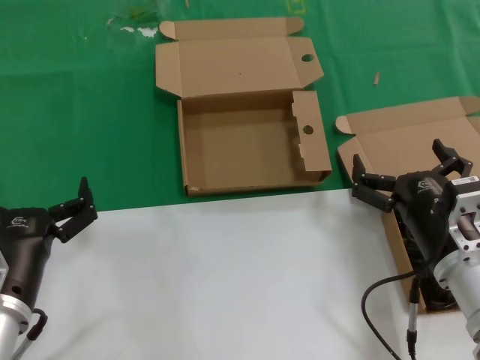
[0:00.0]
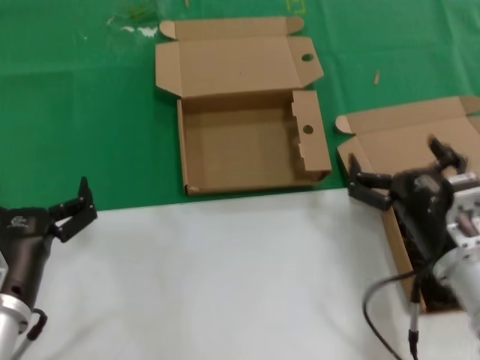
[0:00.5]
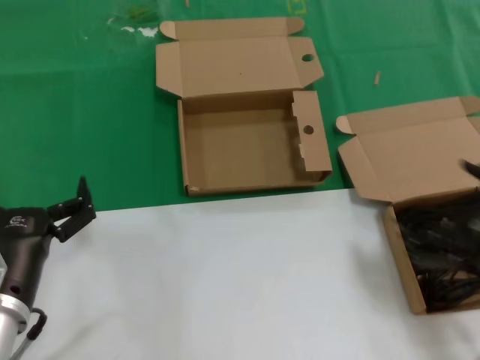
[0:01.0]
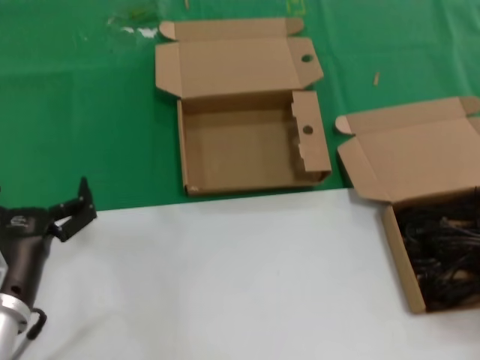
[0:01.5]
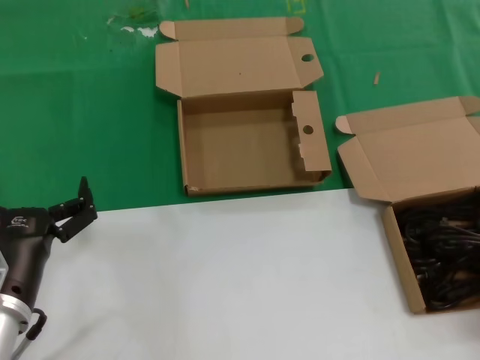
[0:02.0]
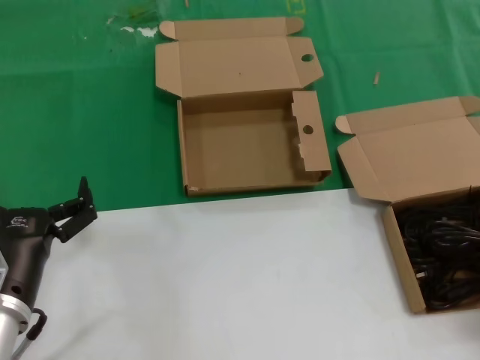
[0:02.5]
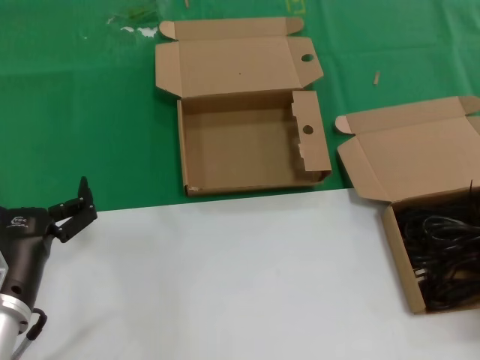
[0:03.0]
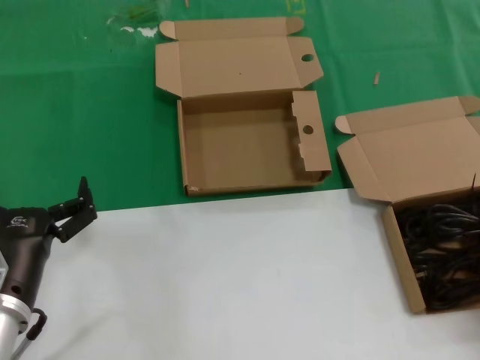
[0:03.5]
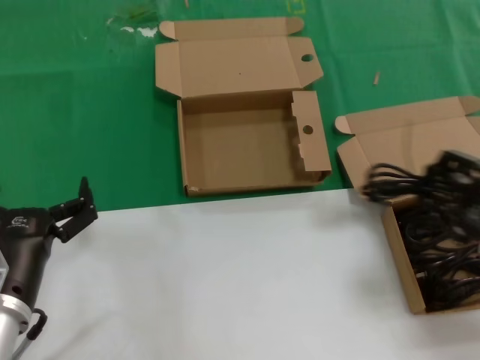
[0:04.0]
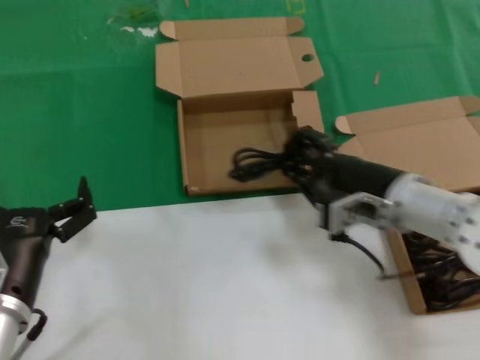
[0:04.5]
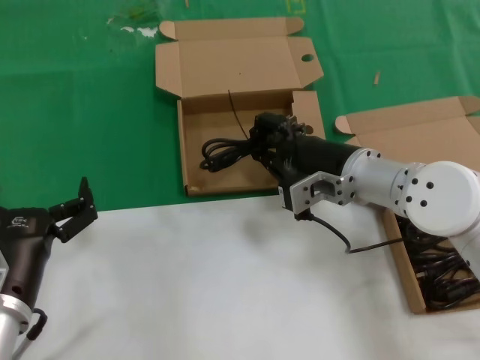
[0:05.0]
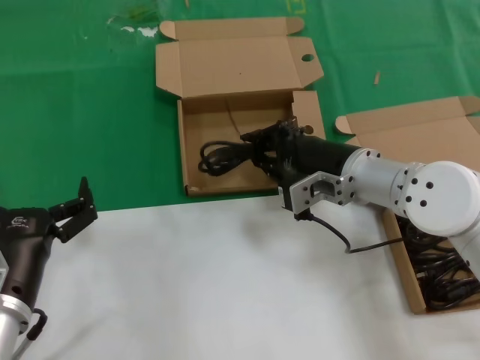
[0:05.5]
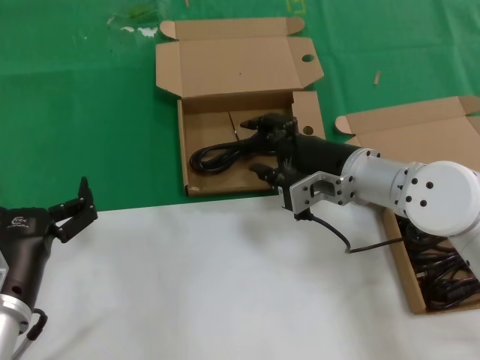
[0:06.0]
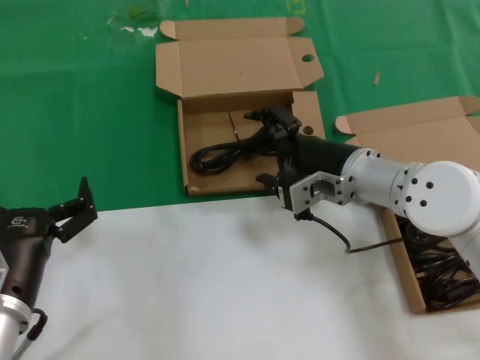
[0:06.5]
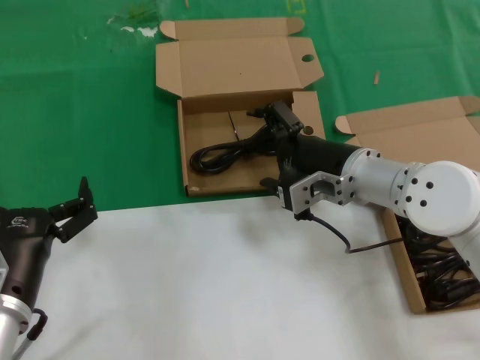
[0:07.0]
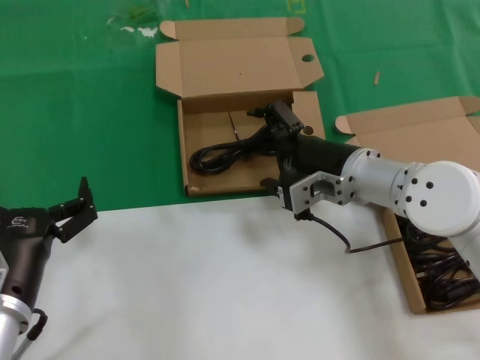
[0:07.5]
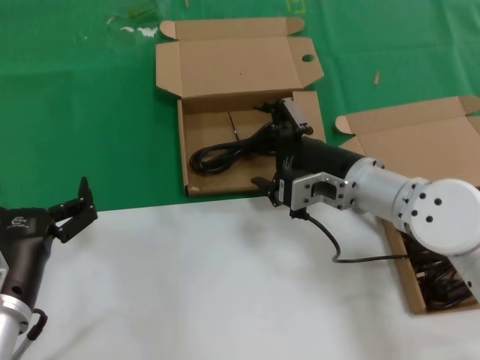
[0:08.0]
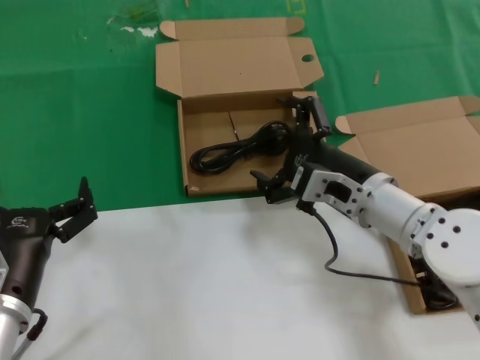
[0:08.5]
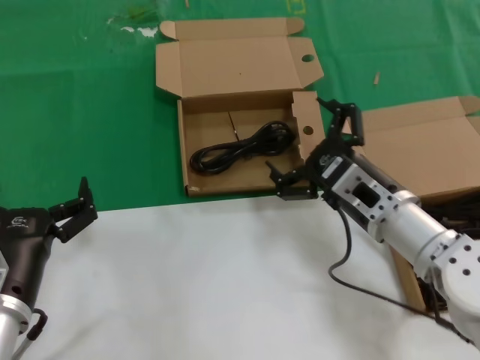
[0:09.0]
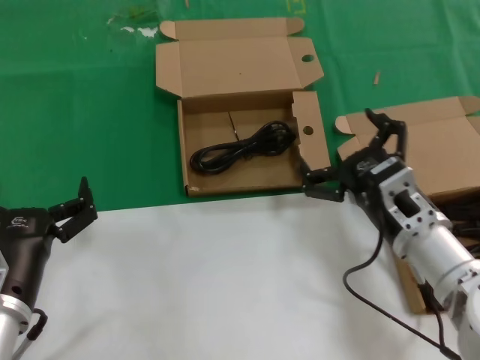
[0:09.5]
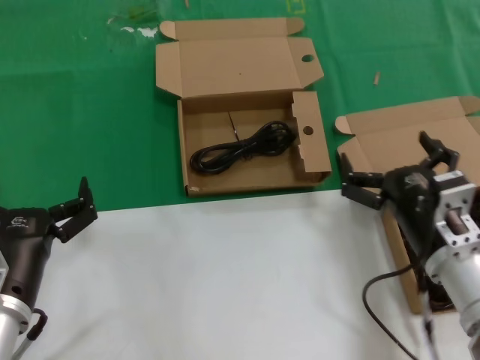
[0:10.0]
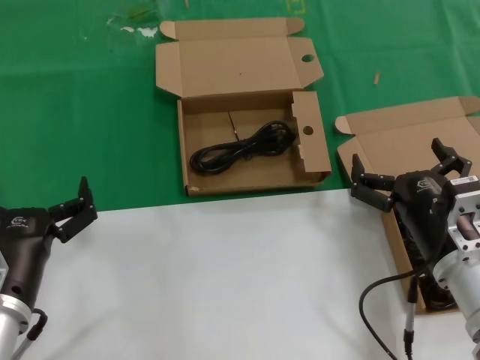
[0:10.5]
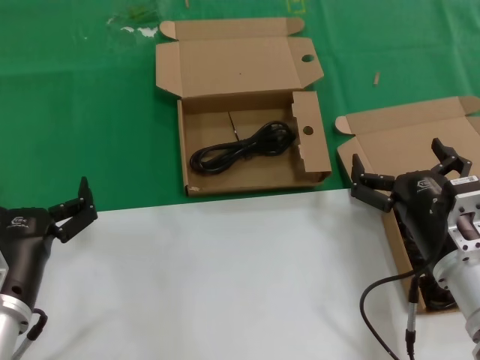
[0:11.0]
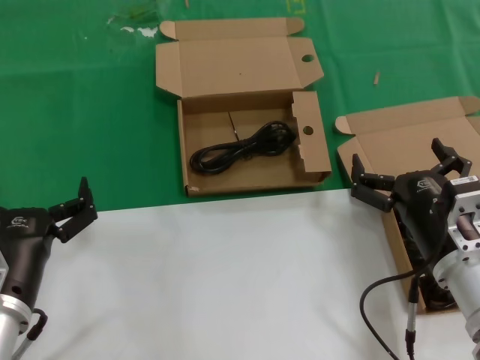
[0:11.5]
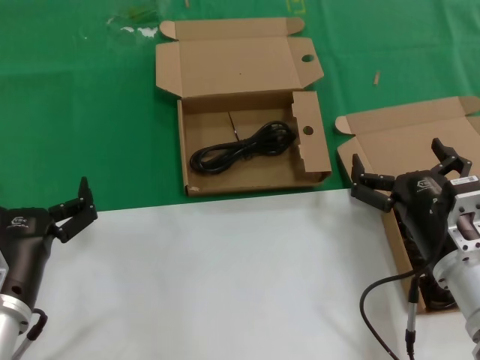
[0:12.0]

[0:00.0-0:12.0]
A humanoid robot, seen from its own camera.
Task of the whole recording: take the parts from the box containing them and put them into an empty box.
Step, 0:00.0 to 0:02.5: Grasp the data cable.
Step, 0:03.5 to 0:06.5: Place the data cable in the another box.
0:00.0 to 0:02.0: The right hand heads to the right, covering about 20 cm.
0:02.0 to 0:04.0: The right hand is displaced to the left by approximately 10 cm.
0:04.0 to 0:06.0: The right hand shifts some 25 cm to the left and forward.
0:06.0 to 0:08.0: The hands stay close to where they were, moving slightly.
0:08.0 to 0:10.0: The right hand heads backward, downward and to the right, covering some 15 cm.
0:10.0 to 0:12.0: There are only small adjustments of the hands.

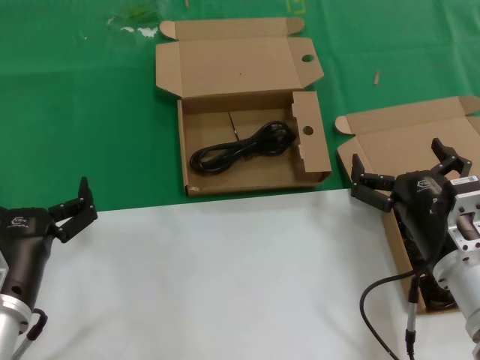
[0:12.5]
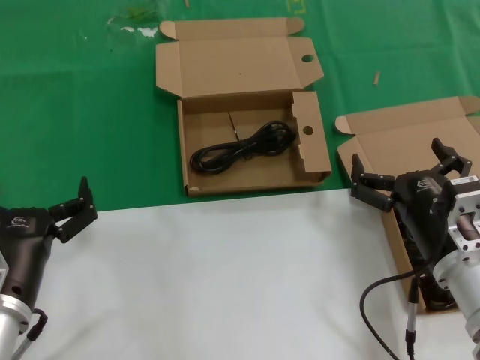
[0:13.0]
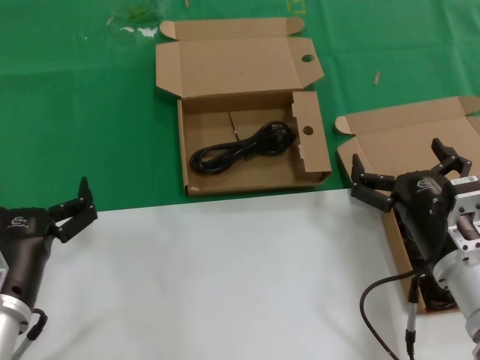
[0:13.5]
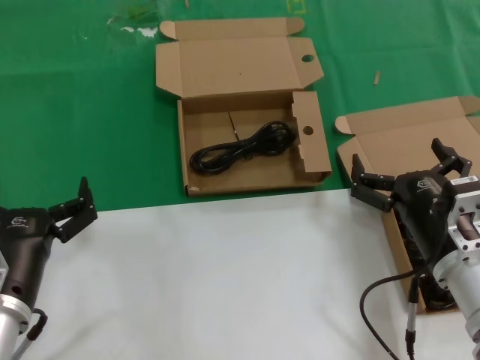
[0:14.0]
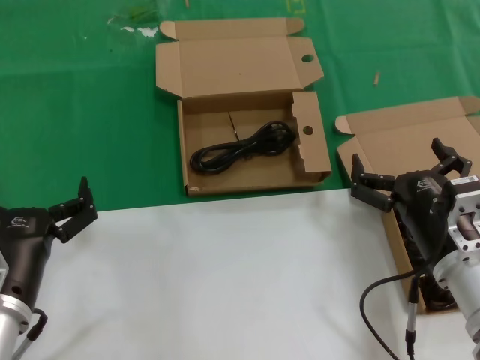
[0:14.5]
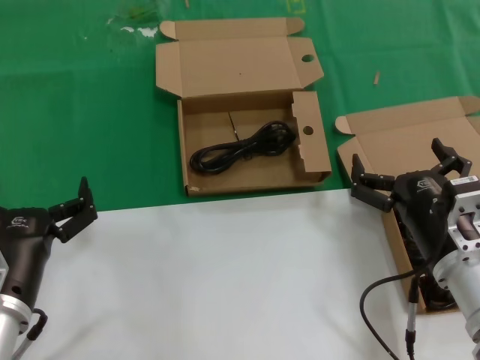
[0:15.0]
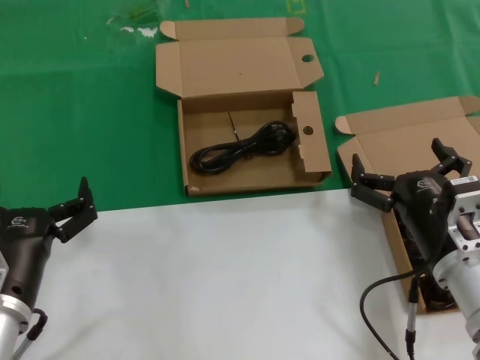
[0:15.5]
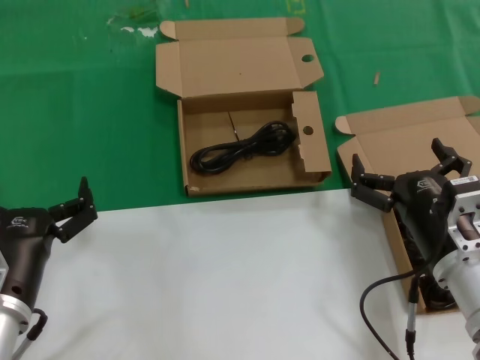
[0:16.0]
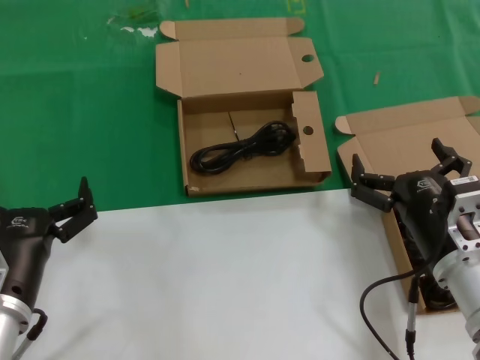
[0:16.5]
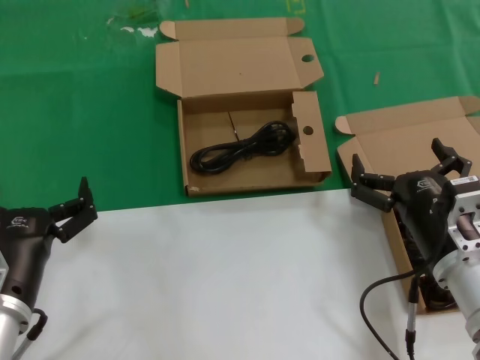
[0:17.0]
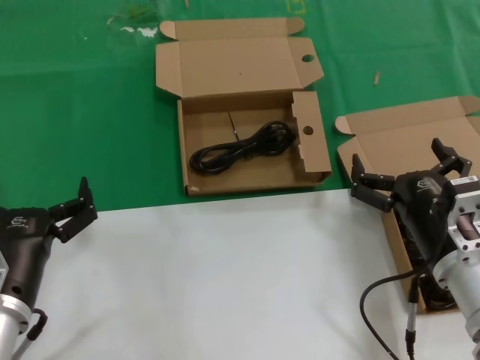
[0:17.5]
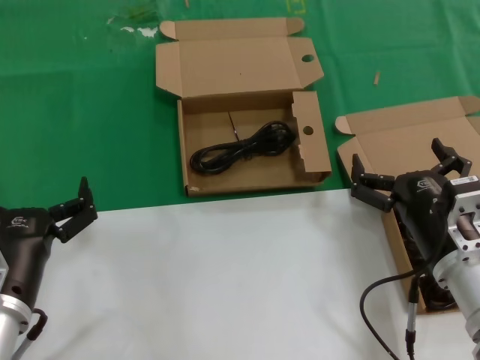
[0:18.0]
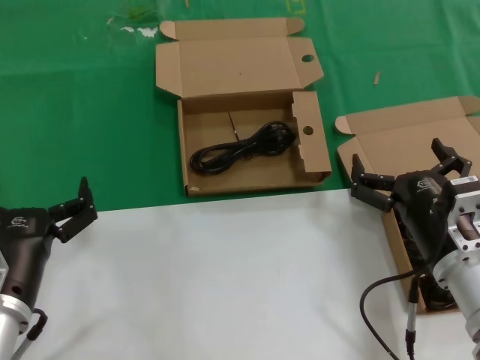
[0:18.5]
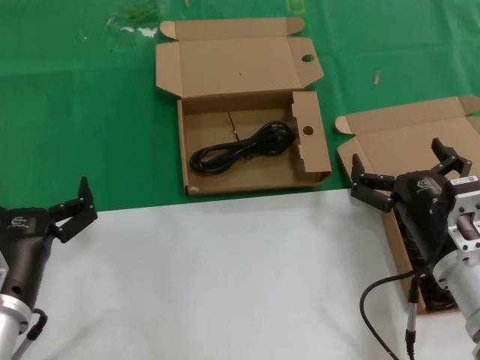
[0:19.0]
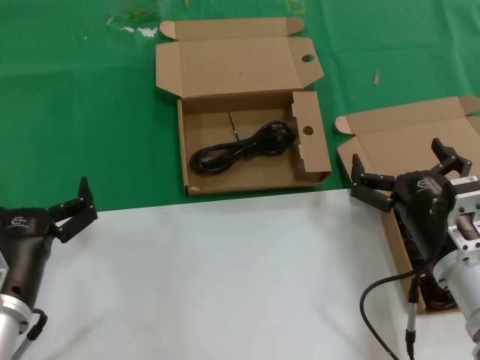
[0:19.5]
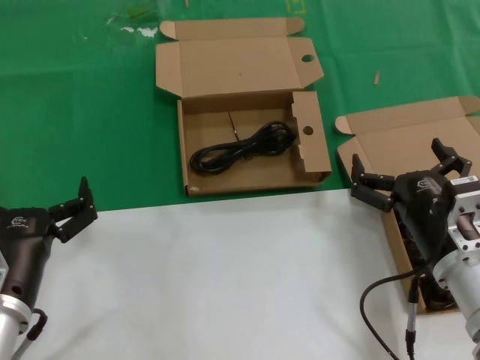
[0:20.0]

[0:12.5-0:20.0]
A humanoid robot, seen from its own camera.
Task of the whole recording: take the parts from the box containing them and put them into an empty box.
0:12.5 to 0:20.0: Both hands stay about where they are.

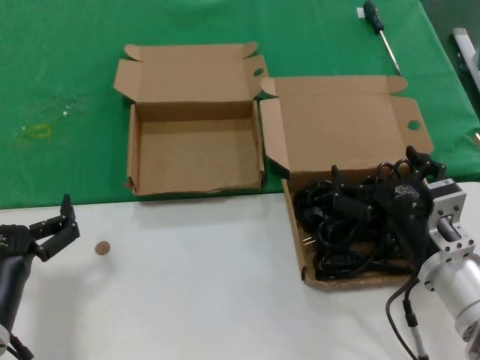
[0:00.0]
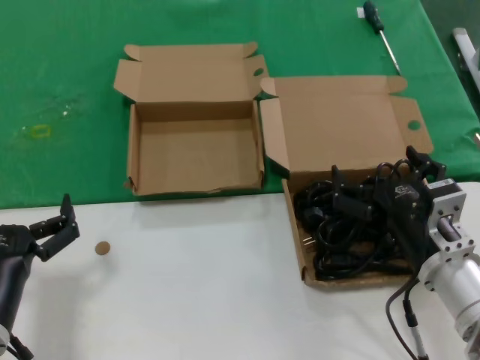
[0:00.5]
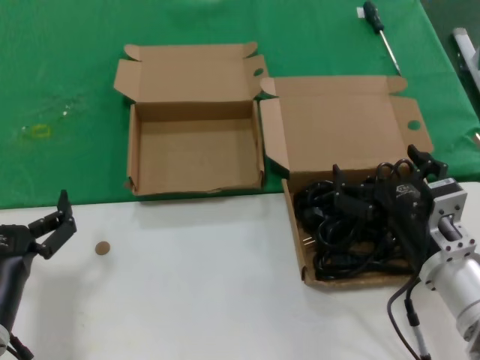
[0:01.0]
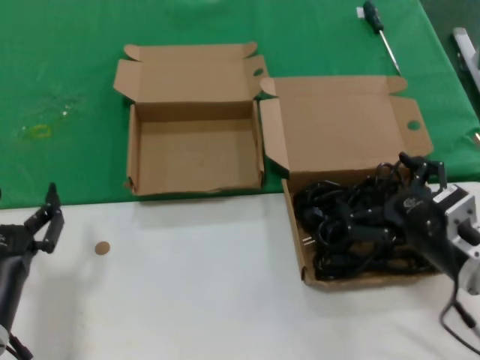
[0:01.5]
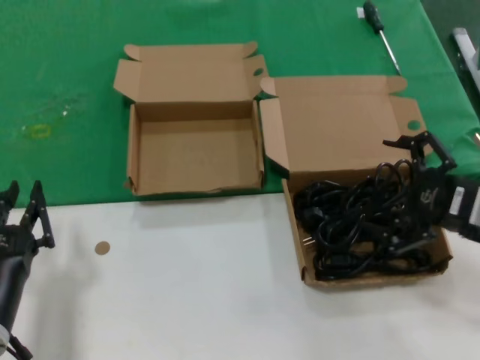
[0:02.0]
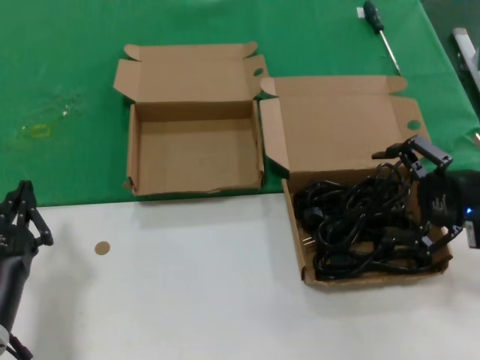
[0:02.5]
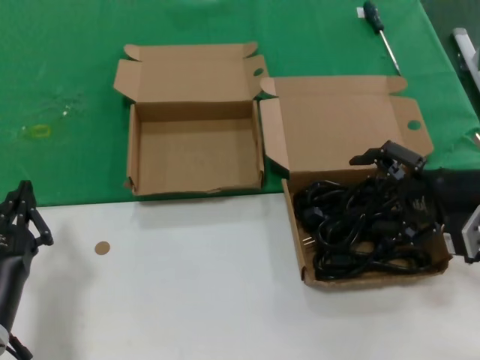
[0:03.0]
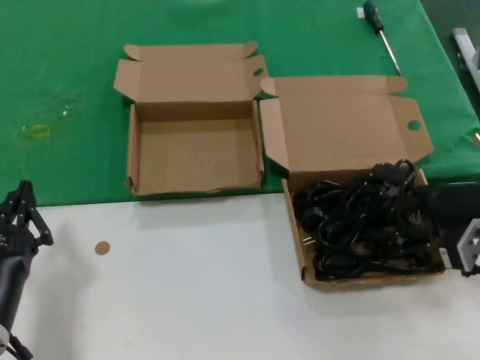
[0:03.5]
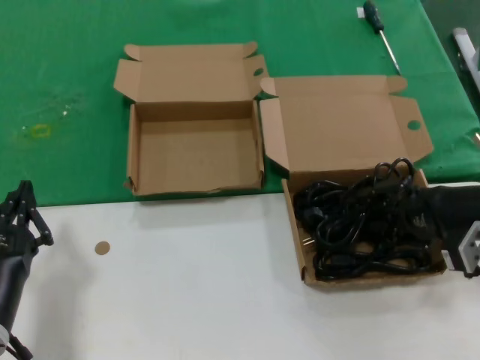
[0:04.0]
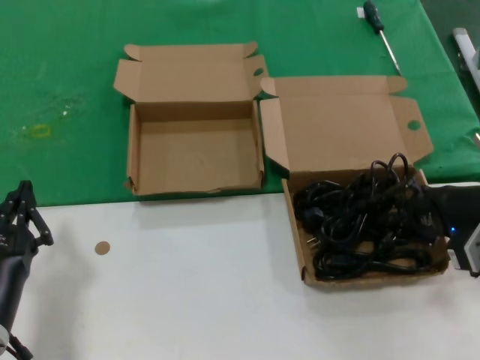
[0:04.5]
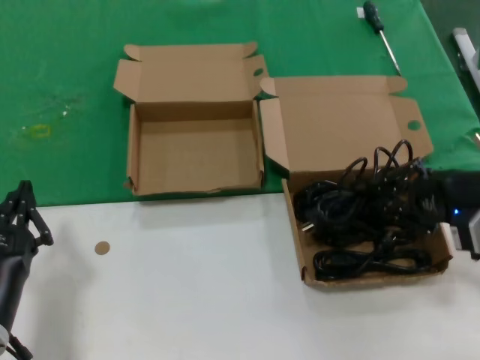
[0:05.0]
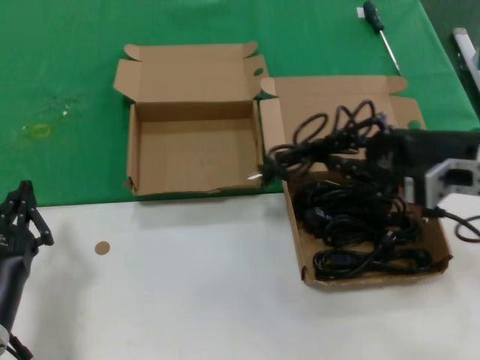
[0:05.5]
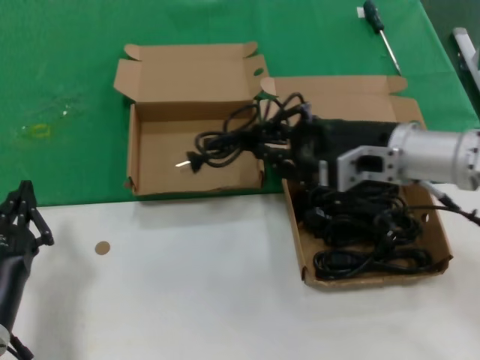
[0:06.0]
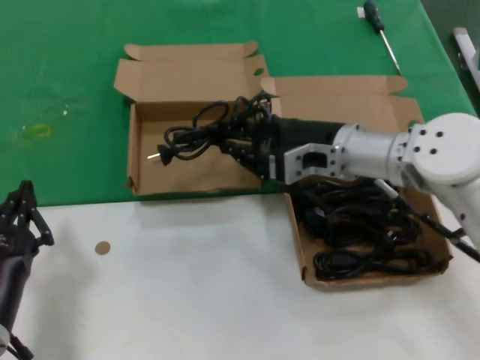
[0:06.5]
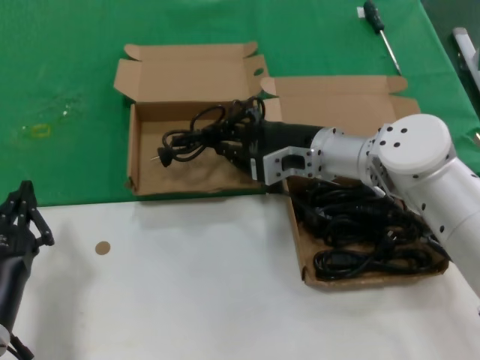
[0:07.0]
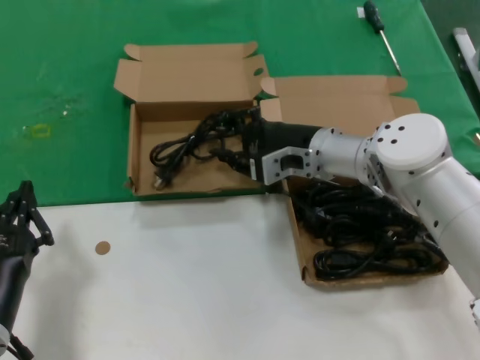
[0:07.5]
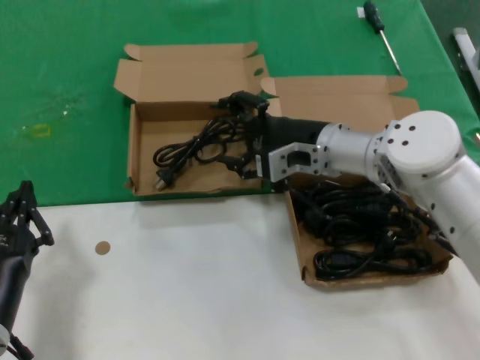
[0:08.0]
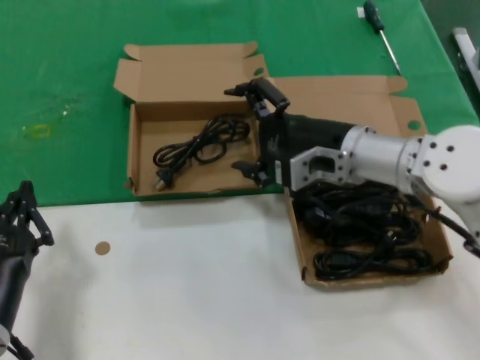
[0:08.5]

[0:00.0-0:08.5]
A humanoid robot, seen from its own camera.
Task of the whole recording: take the parts from the box containing them and put them into an empty box.
Step, 0:00.0 to 0:04.0: Grasp the data cable.
Step, 0:04.5 to 0:08.0: Place the data cable in the another box.
0:00.0 to 0:02.0: The right hand shifts about 15 cm to the right and upward.
0:02.0 to 0:04.0: The right hand is displaced forward by roughly 5 cm.
0:04.0 to 0:06.5: The right hand moves to the left and forward, approximately 20 cm.
0:06.5 to 0:08.5: The hands move only a little.
